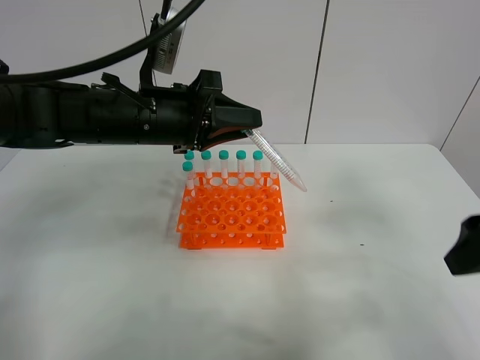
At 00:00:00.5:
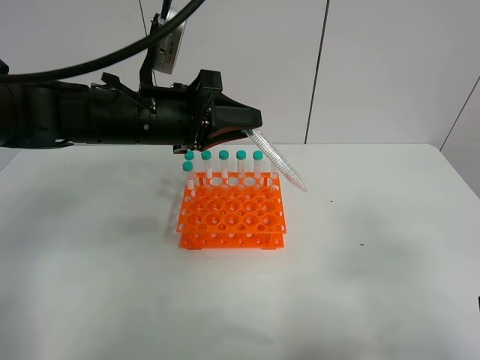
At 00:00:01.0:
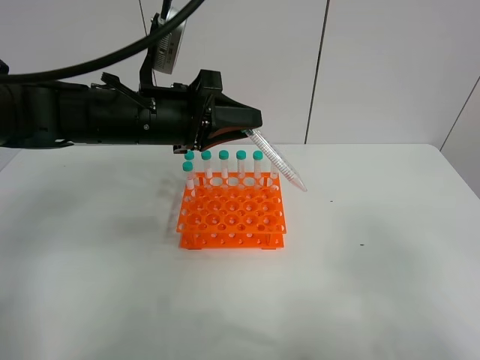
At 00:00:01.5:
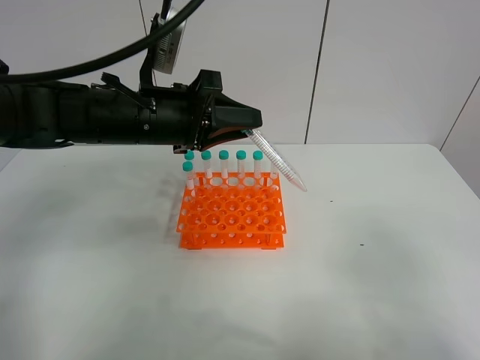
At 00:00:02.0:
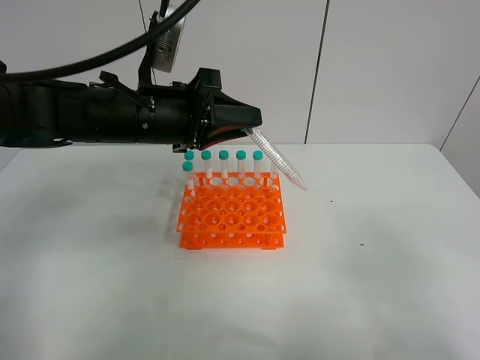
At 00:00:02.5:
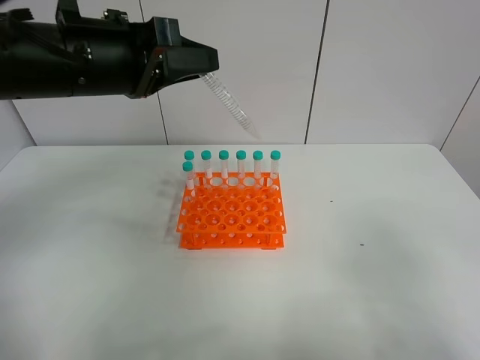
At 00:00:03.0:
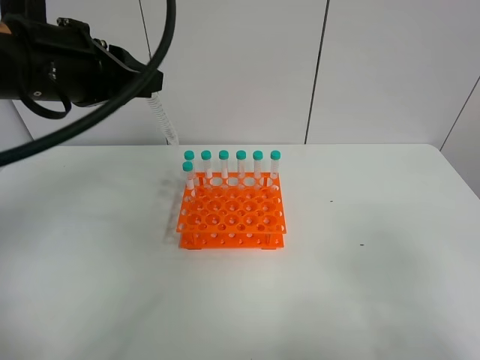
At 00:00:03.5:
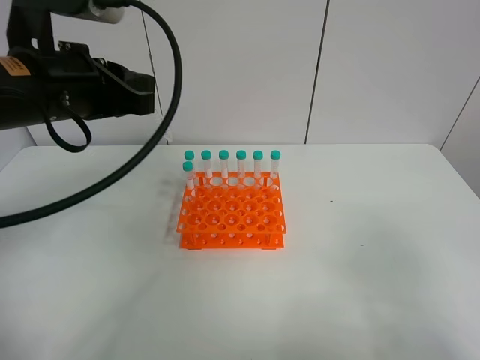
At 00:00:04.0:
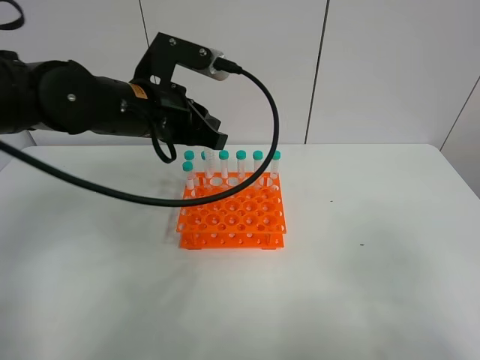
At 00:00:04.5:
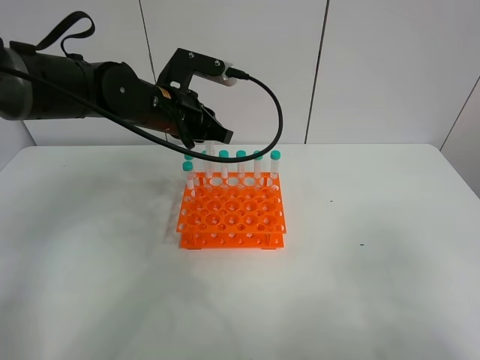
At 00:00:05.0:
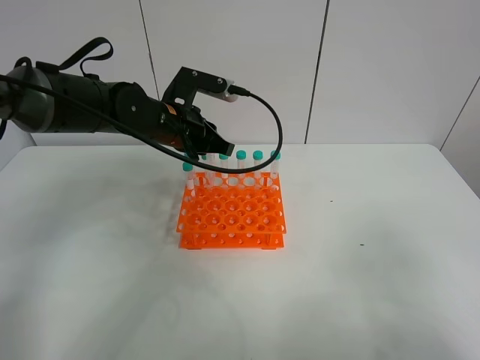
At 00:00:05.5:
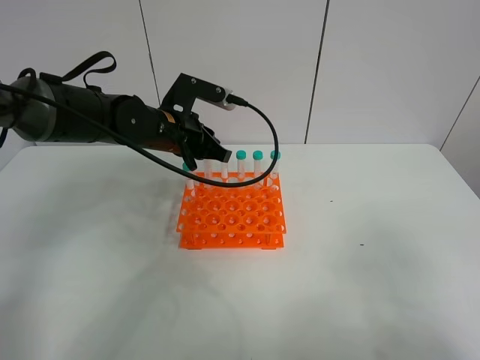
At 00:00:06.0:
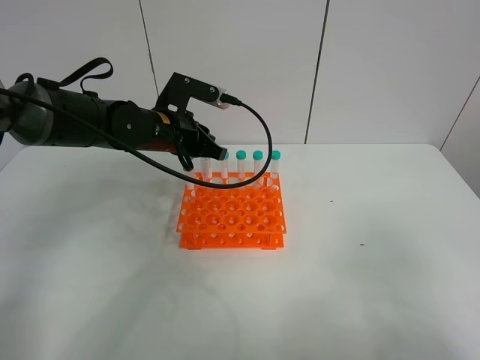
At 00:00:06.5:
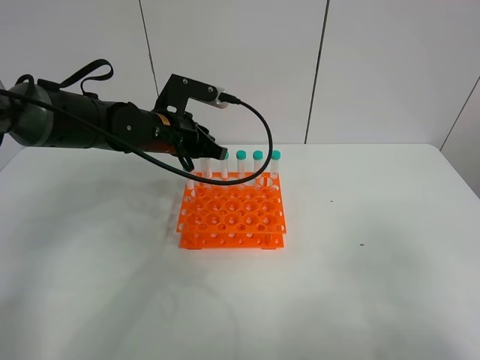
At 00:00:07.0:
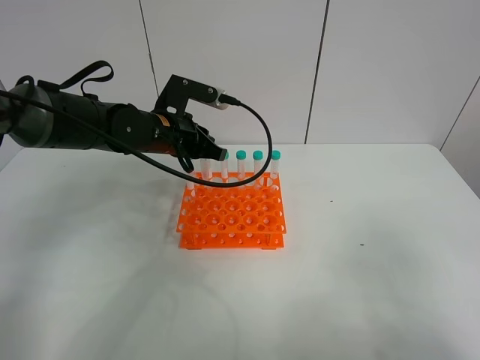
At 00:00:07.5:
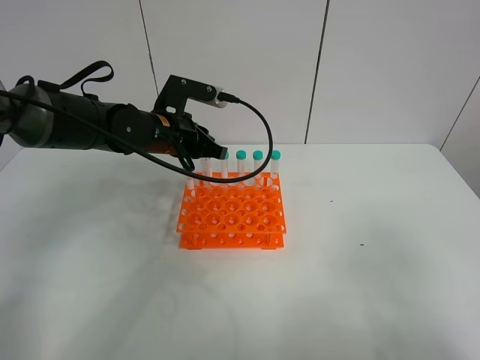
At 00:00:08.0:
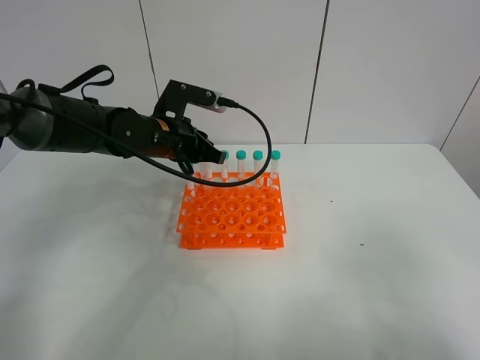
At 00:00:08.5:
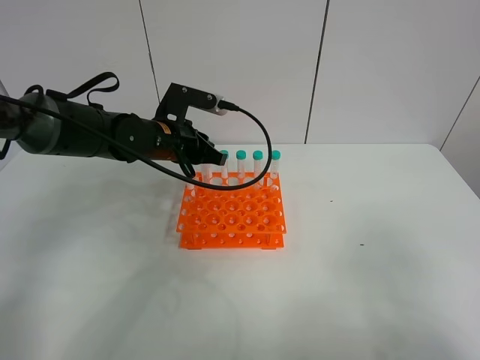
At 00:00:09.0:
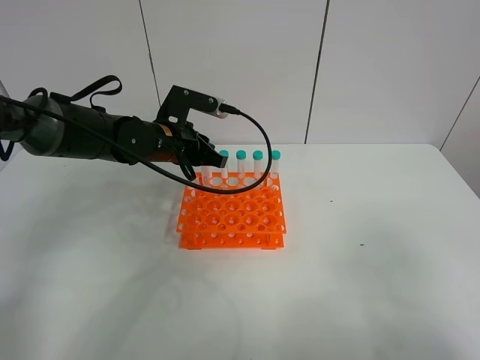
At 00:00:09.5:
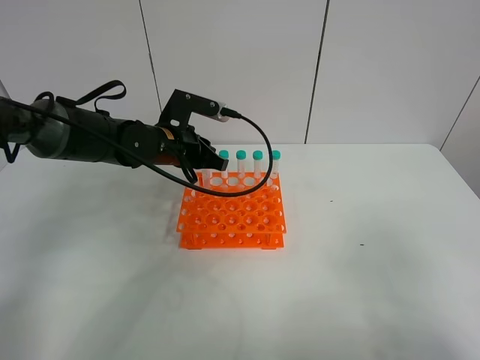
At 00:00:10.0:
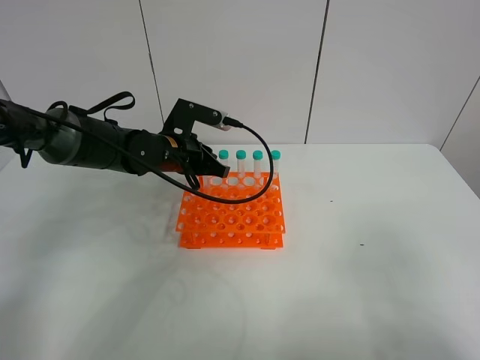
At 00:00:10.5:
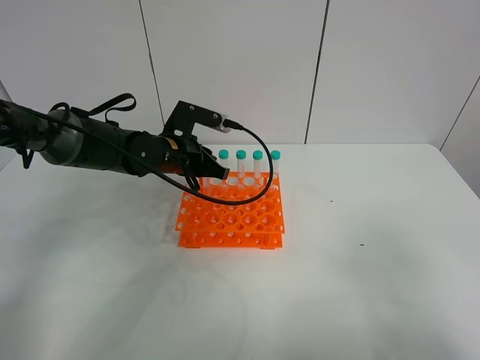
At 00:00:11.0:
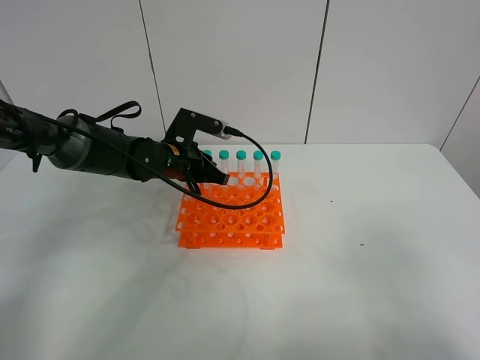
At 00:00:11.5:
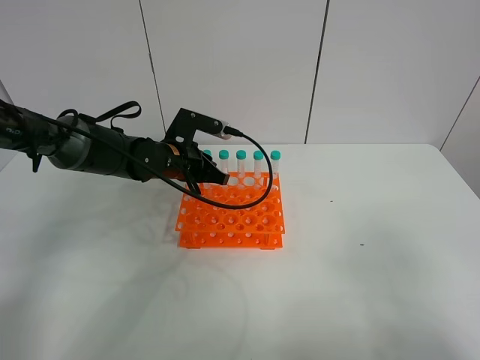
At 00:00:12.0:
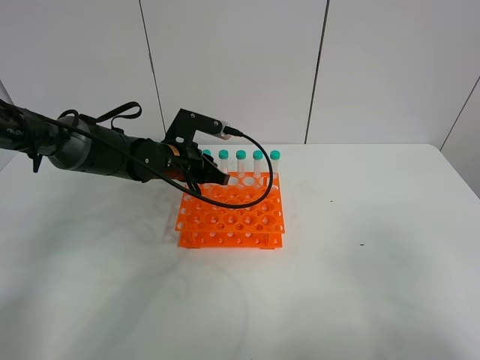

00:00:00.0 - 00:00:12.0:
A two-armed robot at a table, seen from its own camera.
Task of the whole recording: Put the test tube on the table back onto the test tube rack.
00:00:00.0 - 00:00:02.0: The right gripper moves backward, some 15 cm.
00:00:02.0 - 00:00:04.0: The left gripper goes upward and returns, approximately 10 cm each way.
00:00:04.0 - 00:00:06.0: The left gripper moves downward and forward, approximately 10 cm.
00:00:06.0 - 00:00:08.0: Neither gripper changes place.
00:00:08.0 - 00:00:12.0: The grippers make only small movements.

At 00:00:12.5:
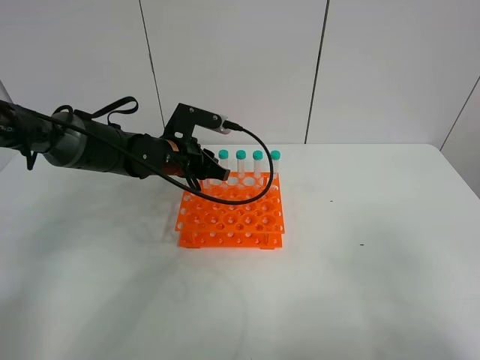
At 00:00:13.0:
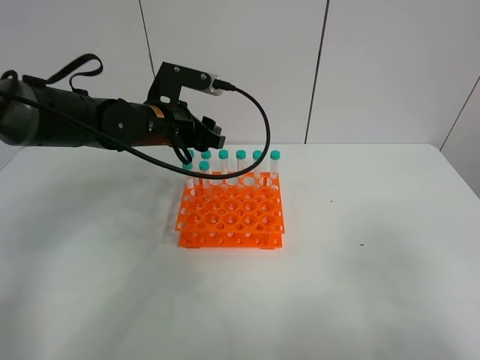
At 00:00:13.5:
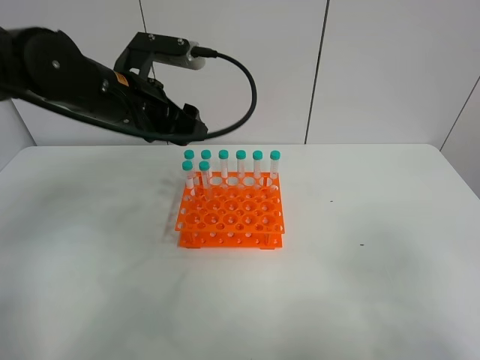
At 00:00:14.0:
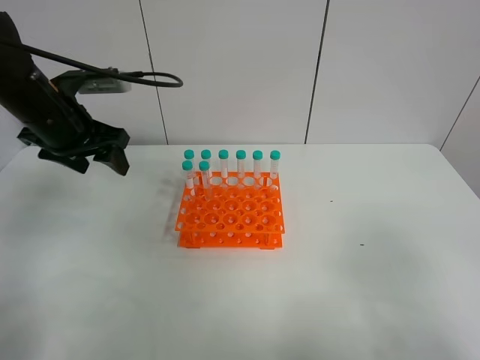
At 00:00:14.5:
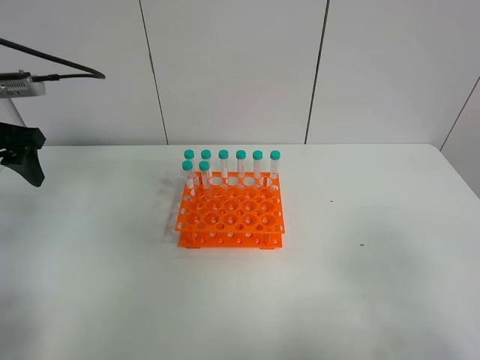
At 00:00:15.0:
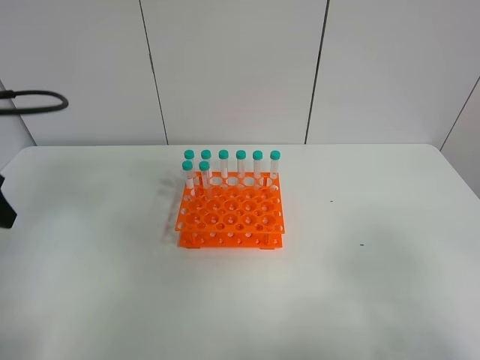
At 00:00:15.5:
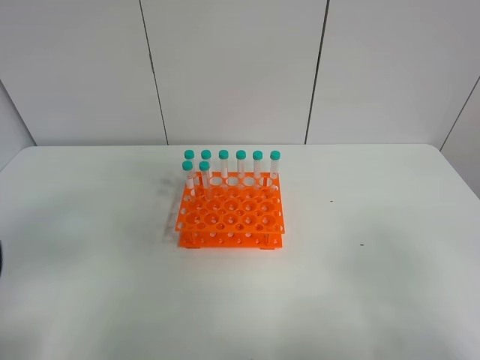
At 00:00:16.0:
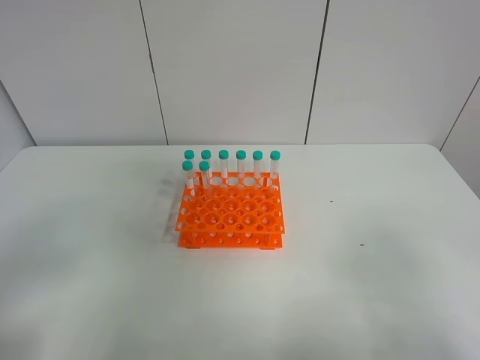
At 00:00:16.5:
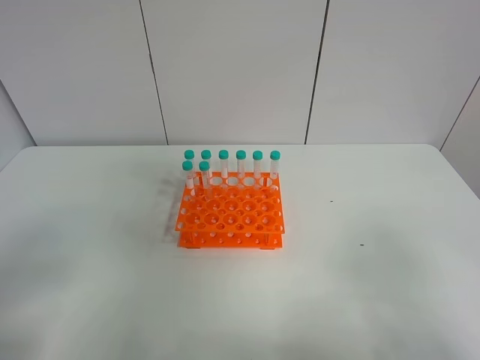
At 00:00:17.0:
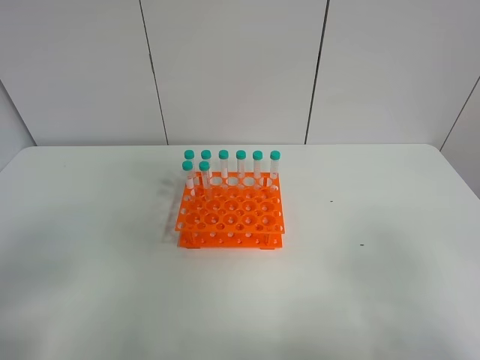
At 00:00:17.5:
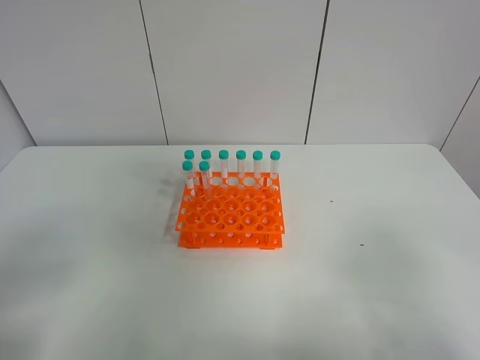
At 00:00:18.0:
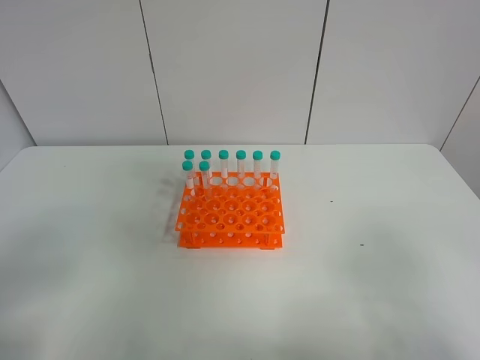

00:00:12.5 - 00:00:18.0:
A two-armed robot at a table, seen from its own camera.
Task of the whole recording: Put the test tube on the table back onto the test tube rack.
00:00:12.5 - 00:00:14.5: The left gripper goes about 25 cm to the left and upward, and opens up.
00:00:14.5 - 00:00:16.0: The left gripper moves backward, about 25 cm.
